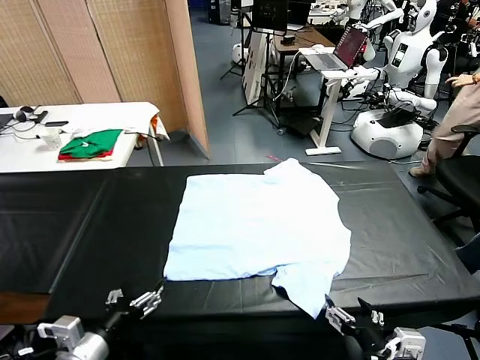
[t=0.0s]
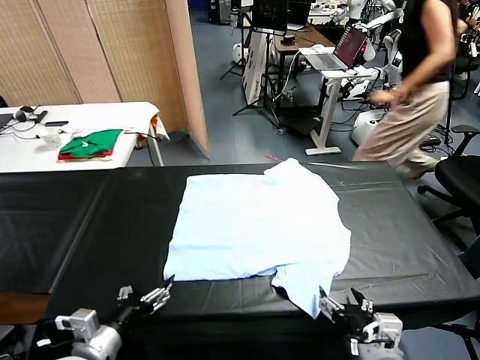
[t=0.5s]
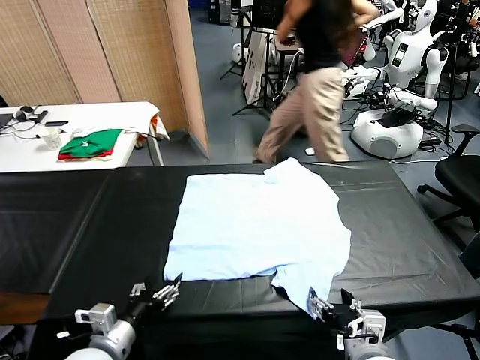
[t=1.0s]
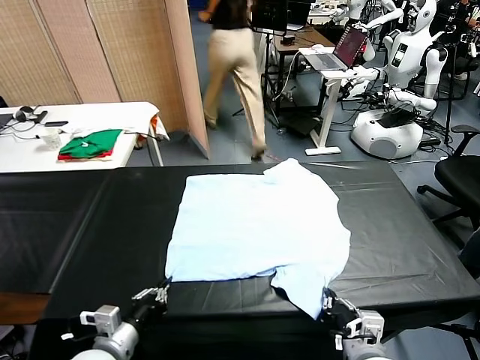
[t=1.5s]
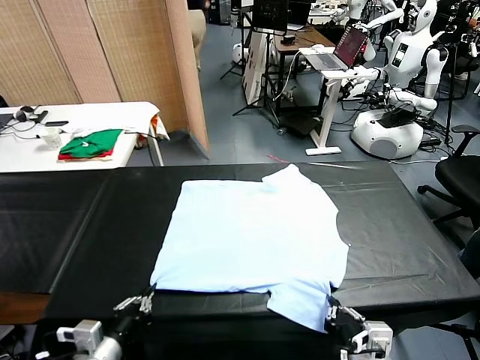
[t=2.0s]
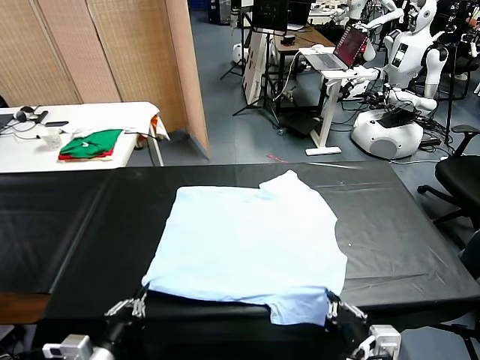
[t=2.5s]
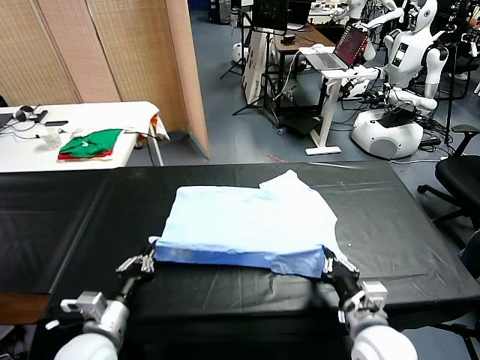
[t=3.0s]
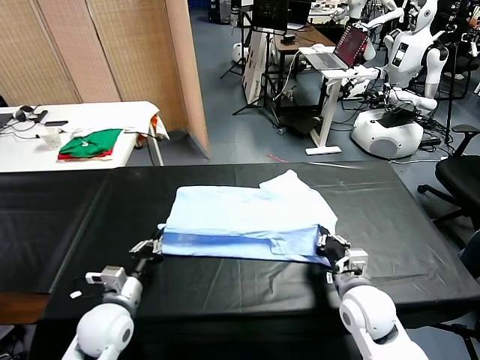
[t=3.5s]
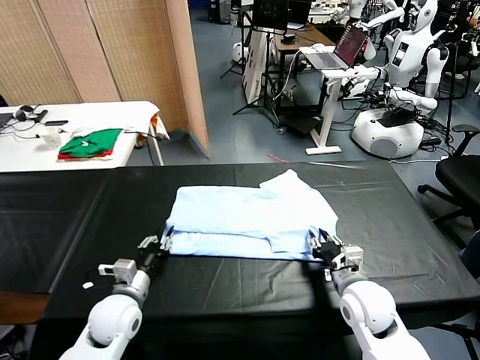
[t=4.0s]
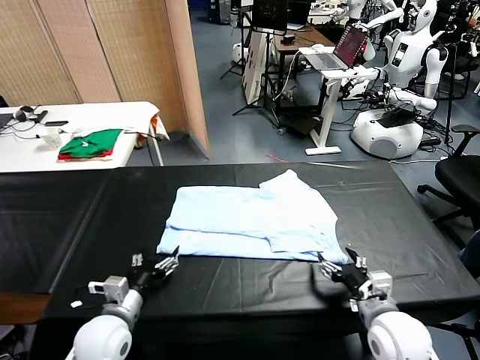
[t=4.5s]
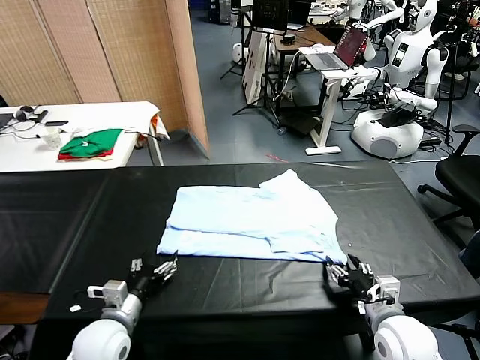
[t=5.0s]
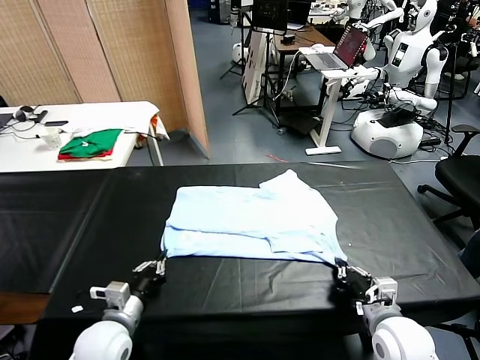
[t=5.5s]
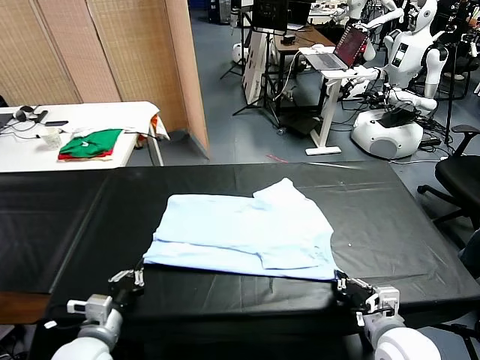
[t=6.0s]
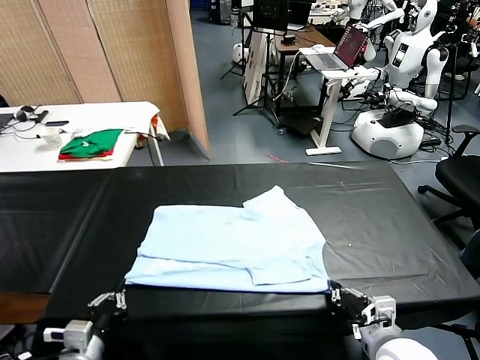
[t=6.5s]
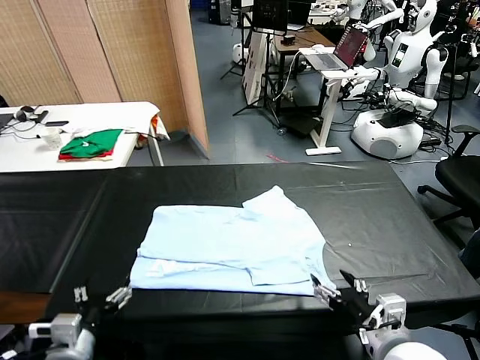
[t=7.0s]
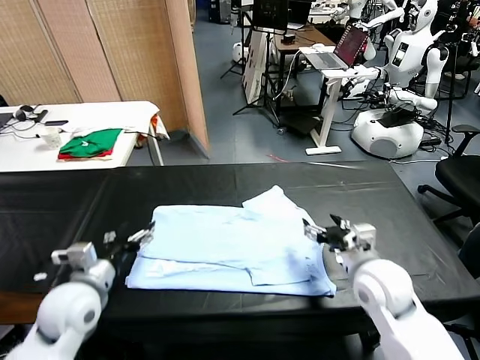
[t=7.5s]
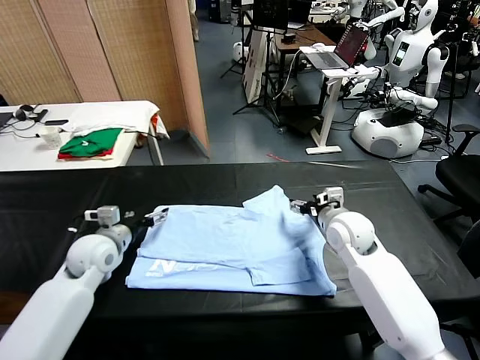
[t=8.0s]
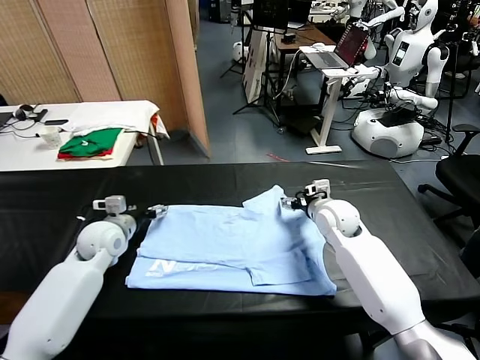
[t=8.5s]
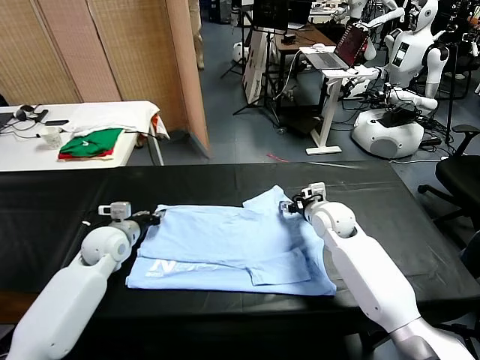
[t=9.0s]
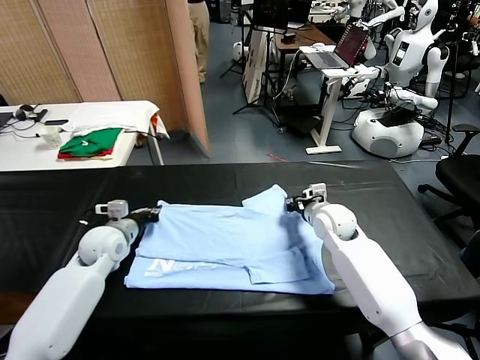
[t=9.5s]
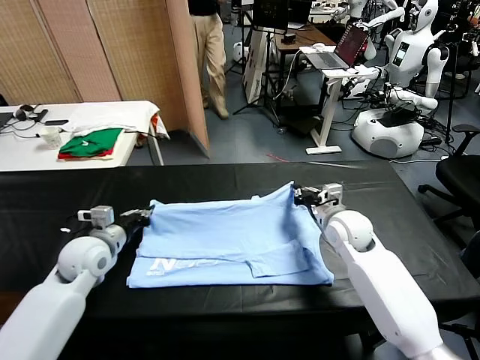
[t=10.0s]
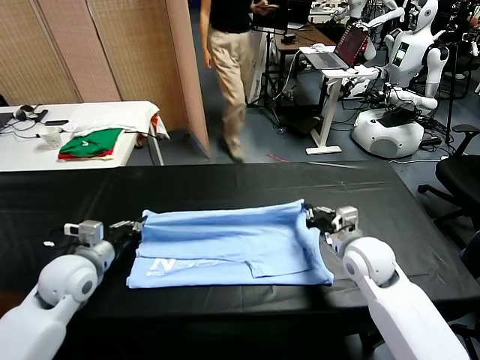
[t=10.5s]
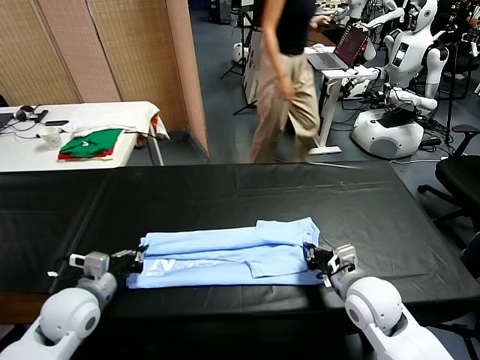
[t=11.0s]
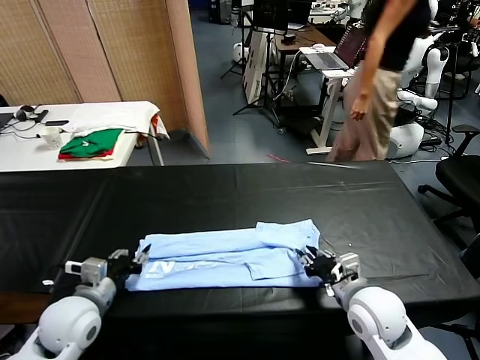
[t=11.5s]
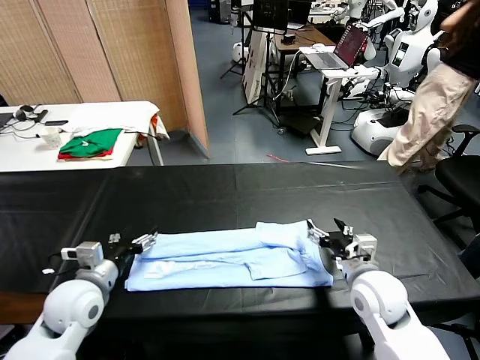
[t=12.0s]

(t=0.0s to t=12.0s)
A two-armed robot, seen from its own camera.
Task of the whole recording: fold and organize the clothes.
Step, t=0.0s - t=1.0s: use both grippers simultaneously to clamp the lower edge of the clothing fabric.
Step, t=1.5s - t=4.0s: use both grippers to drag the lower edge of the fabric forward and fold it over the upper edge.
Step, t=4.5s - t=6.5s: Drag the clothes downward with both gripper.
Step, t=7.0s - t=9.0s: use both grippers simultaneously to clamp the upper edge of the clothing fabric.
Step, t=9.5s - t=11.5s: use both grippers to drag the upper edge of the fabric backward and fold it over the lower edge.
t=2.0s - t=4.0s: Both grippers move forward, roughly 15 cm. The right gripper opens its fingers; the left gripper opens up.
t=4.0s - t=6.0s: The left gripper heads backward, covering some 10 cm, and closes up. Meanwhile the right gripper moves backward, some 5 cm, and closes up.
t=6.0s - t=8.0s: The two grippers go roughly 30 cm forward. The right gripper opens. Meanwhile the left gripper opens up.
t=8.0s - t=10.0s: The grippers both shift backward by about 10 cm. The right gripper closes its fingers; the left gripper closes.
t=10.0s - t=12.0s: Both grippers move downward, about 5 cm. The right gripper goes backward and returns, about 10 cm each way, and opens; the left gripper opens.

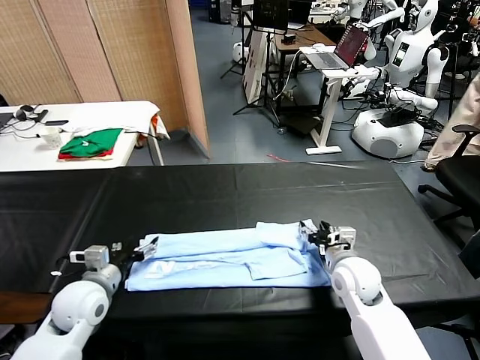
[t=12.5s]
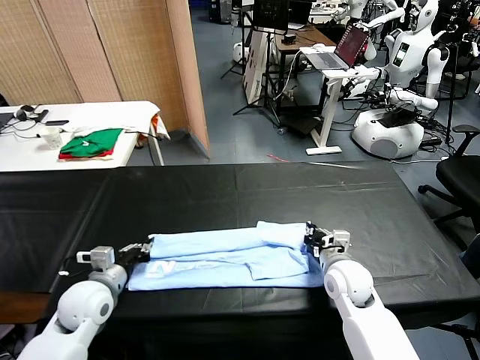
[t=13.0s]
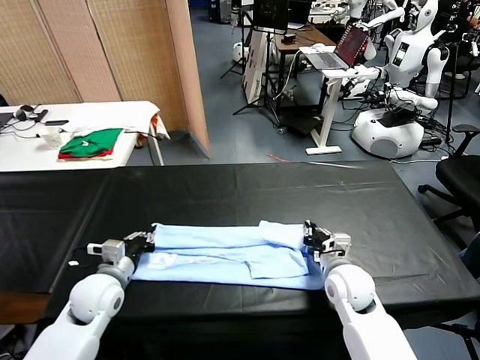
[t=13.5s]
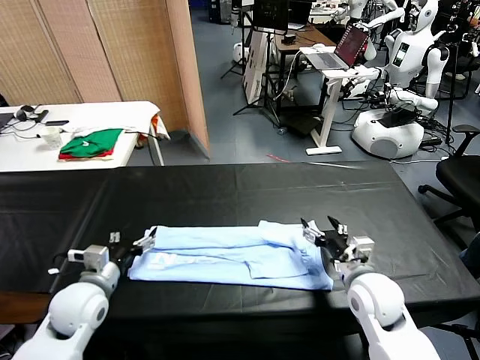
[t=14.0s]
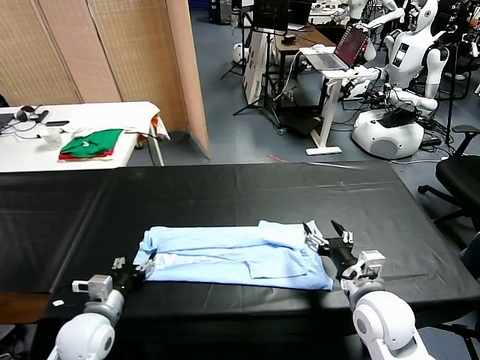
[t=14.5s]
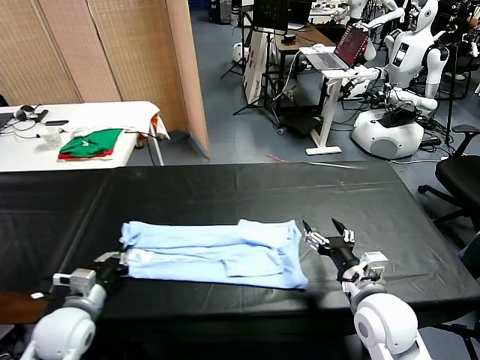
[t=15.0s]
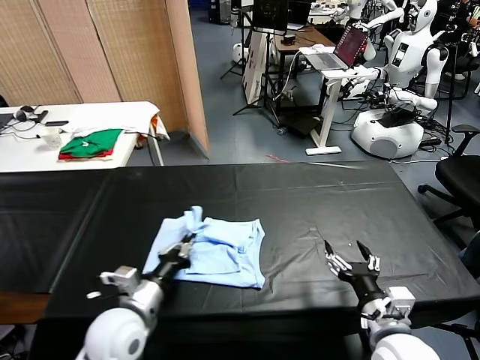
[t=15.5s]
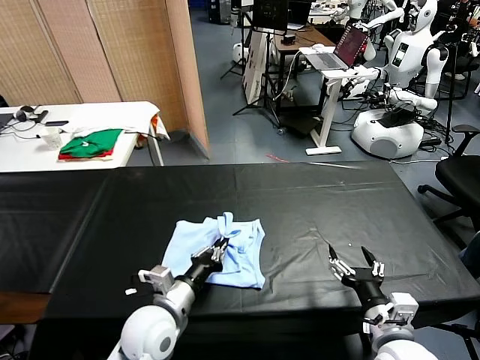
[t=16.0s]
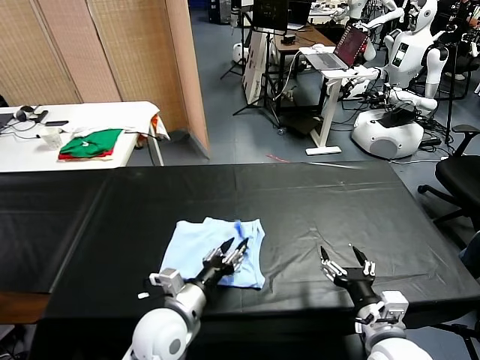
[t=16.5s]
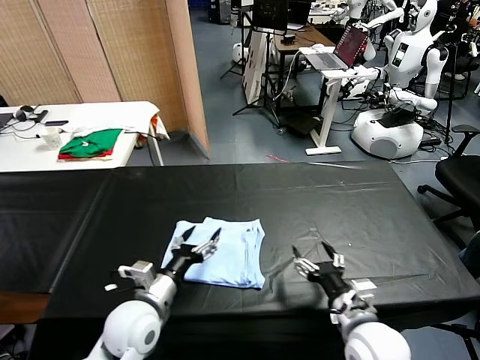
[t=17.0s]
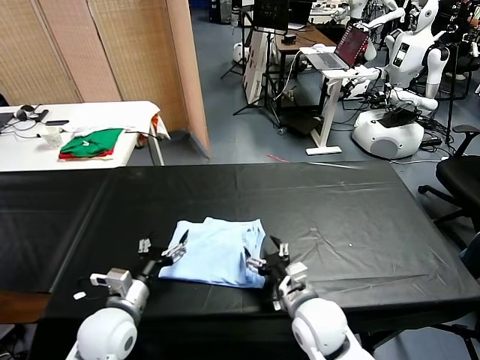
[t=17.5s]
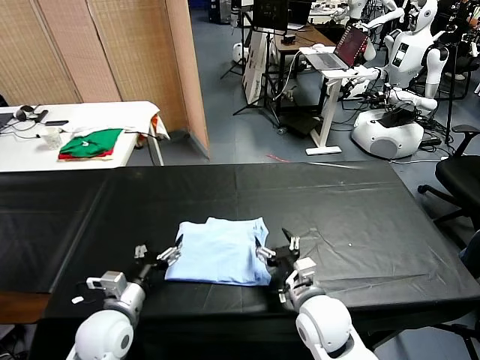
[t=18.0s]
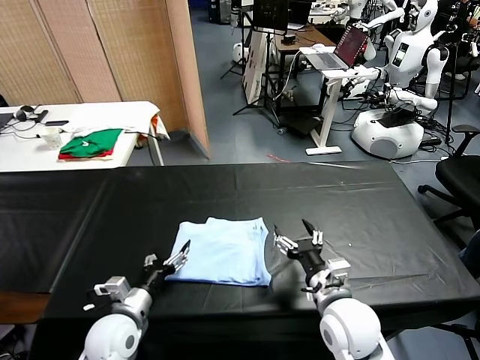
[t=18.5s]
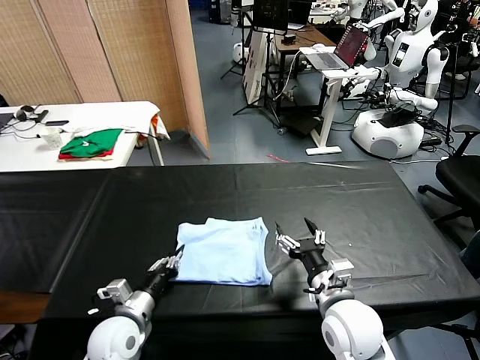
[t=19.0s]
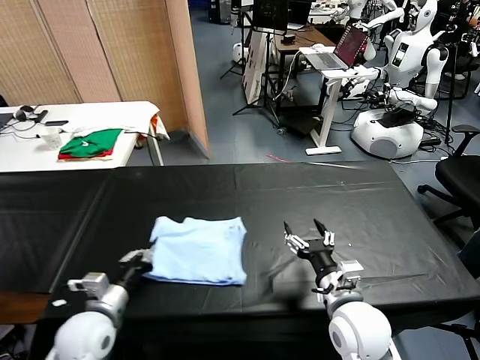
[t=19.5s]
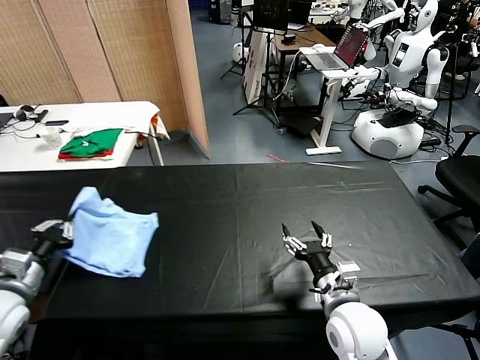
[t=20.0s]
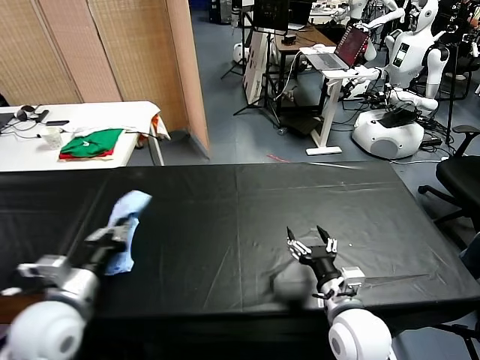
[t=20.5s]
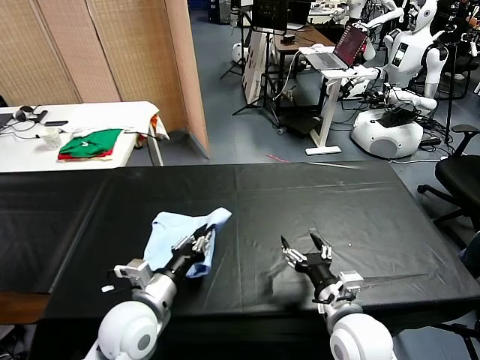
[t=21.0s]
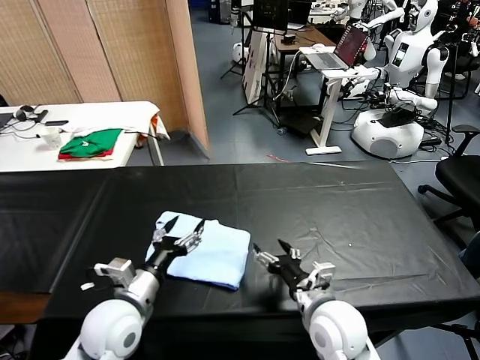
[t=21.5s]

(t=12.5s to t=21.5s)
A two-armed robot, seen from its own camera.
Task of the whole recording: fold and organize the clothes.
Step, t=12.5s - t=14.5s: use the left gripper to clamp the left edge of the fabric.
Step, t=15.0s - t=16.5s: use the left gripper to drag the left edge of the fabric to the left and folds it over the right edge.
Step, t=17.0s - t=21.0s: Flip the folded clothes over with left gripper.
t=12.5s - t=14.5s: The left gripper moves backward, some 5 cm, and opens, then closes once more, while the right gripper goes about 10 cm backward and upward, and opens its fingers.
t=14.5s - t=17.0s: The right gripper moves backward, some 5 cm; the left gripper travels to the right by some 15 cm, and opens its fingers.
t=17.0s - t=19.5s: The left gripper shifts approximately 10 cm to the left, and closes its fingers; the right gripper goes approximately 10 cm forward and to the left.
t=19.5s - t=21.5s: The left gripper moves upward, about 10 cm, moves approximately 15 cm to the left and comes back, and opens.

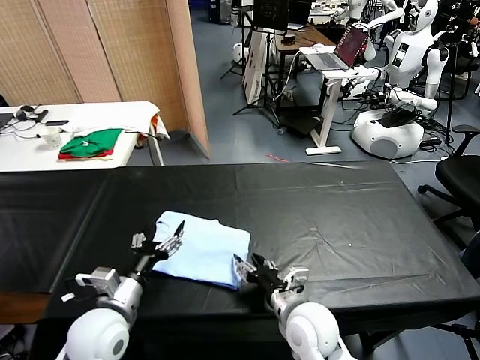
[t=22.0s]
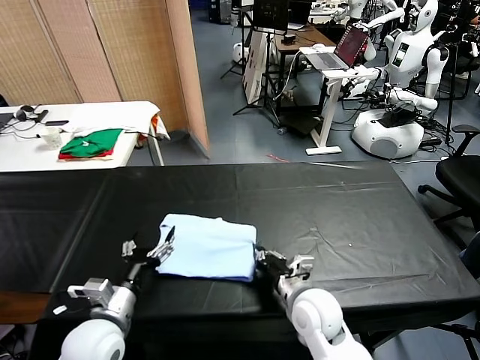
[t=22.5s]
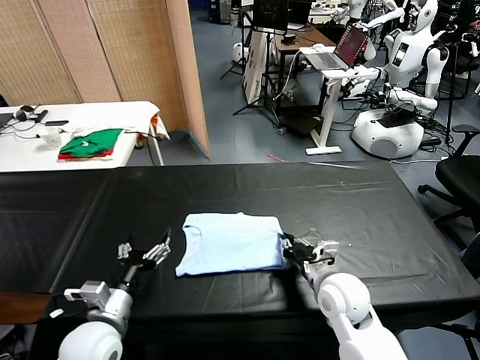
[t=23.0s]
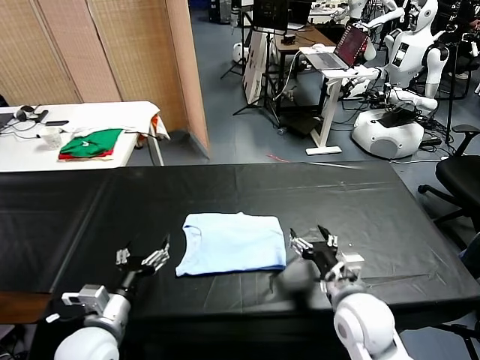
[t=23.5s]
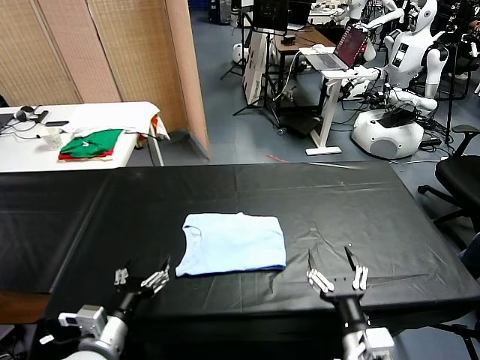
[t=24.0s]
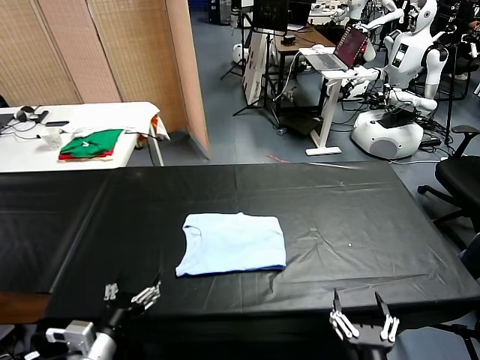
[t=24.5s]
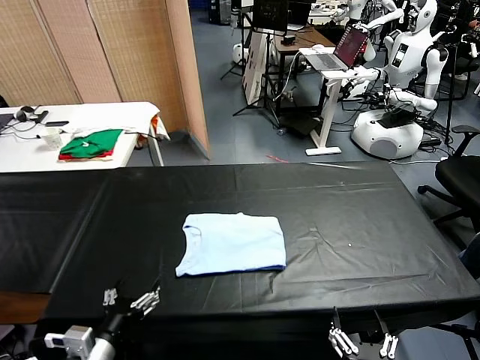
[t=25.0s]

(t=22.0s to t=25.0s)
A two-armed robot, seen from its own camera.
Task of the whole recording: fold and organize the clothes.
Step, t=22.0s - t=23.0s: Drag the clothes to the center of the table.
t=22.0s - t=23.5s: The right gripper travels to the right by some 10 cm, and closes and opens again.
t=23.5s - t=25.0s: The right gripper moves backward, approximately 25 cm. Meanwhile the left gripper moves backward, approximately 10 cm.
